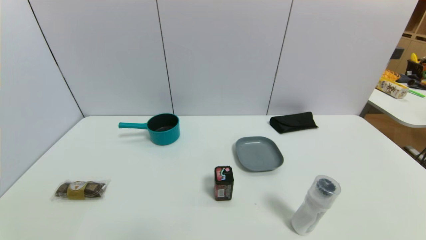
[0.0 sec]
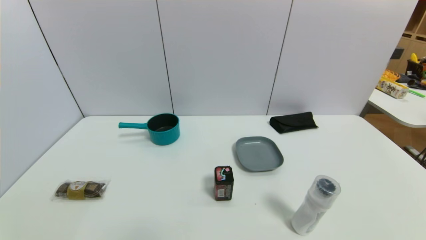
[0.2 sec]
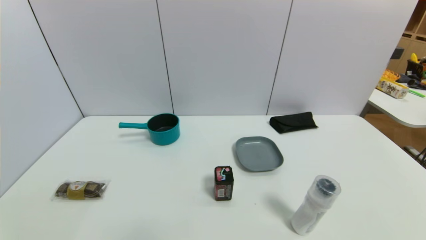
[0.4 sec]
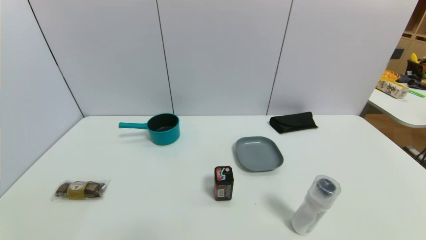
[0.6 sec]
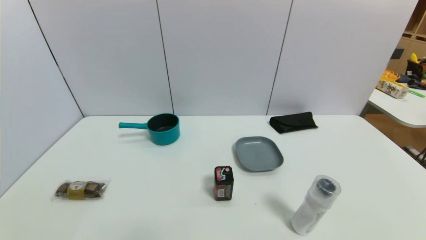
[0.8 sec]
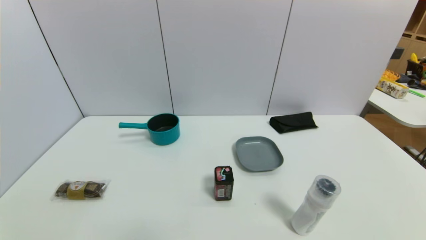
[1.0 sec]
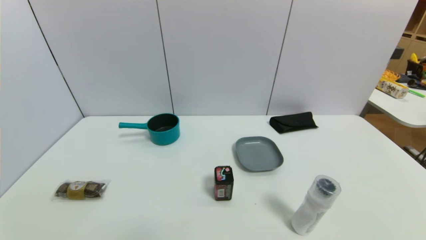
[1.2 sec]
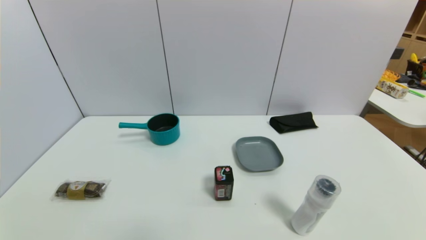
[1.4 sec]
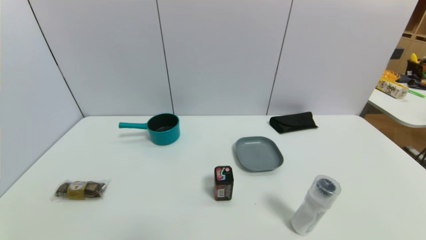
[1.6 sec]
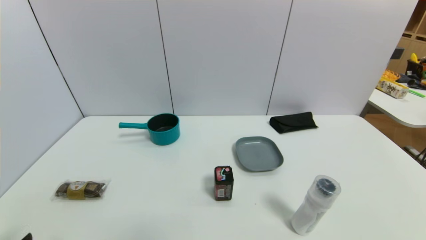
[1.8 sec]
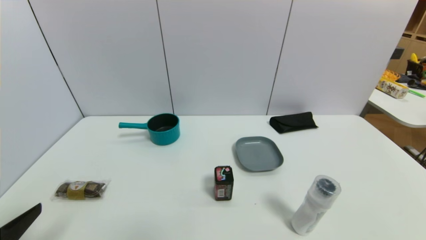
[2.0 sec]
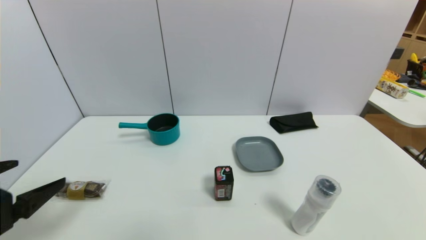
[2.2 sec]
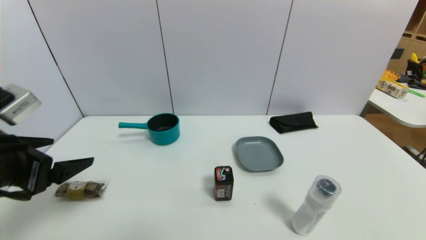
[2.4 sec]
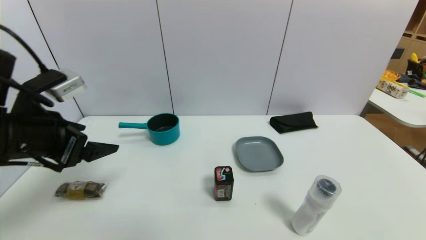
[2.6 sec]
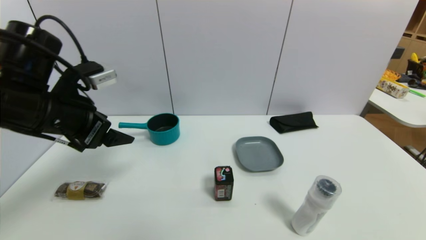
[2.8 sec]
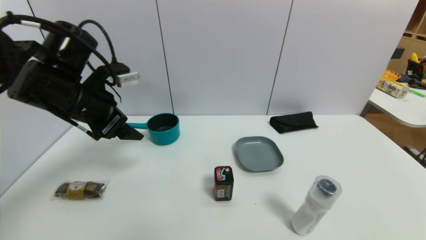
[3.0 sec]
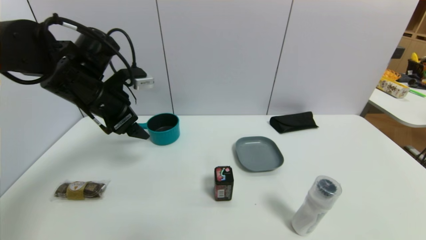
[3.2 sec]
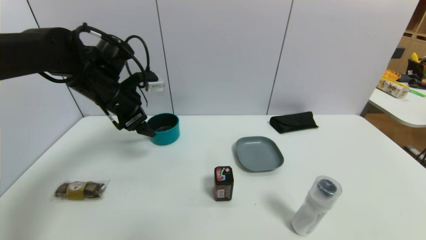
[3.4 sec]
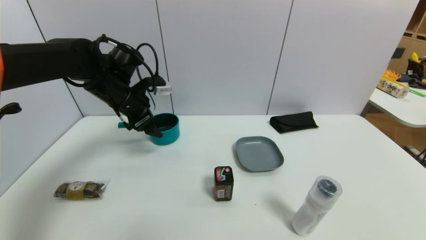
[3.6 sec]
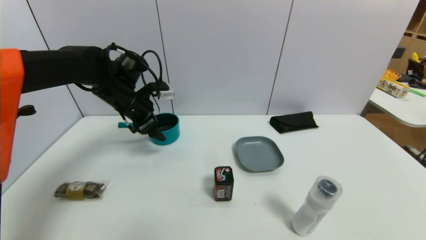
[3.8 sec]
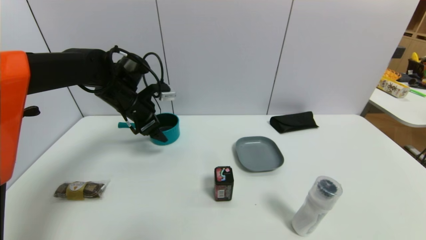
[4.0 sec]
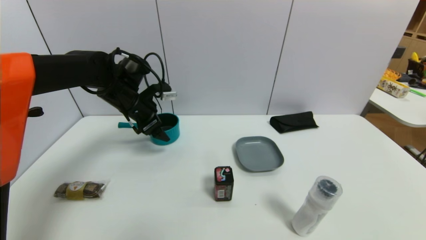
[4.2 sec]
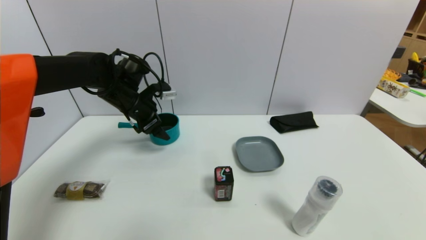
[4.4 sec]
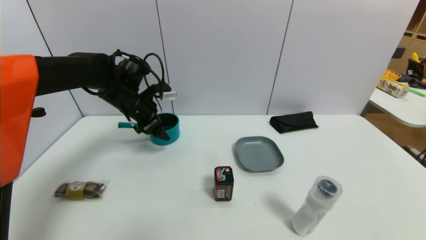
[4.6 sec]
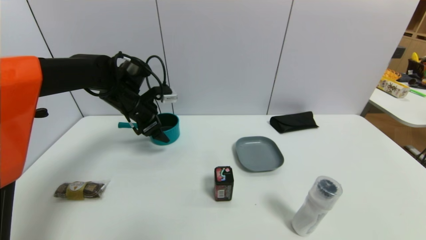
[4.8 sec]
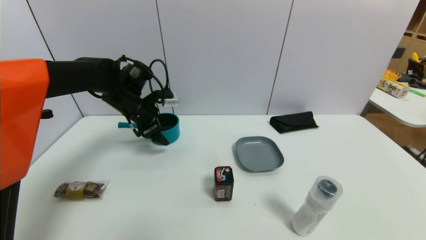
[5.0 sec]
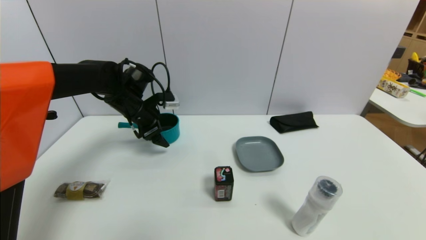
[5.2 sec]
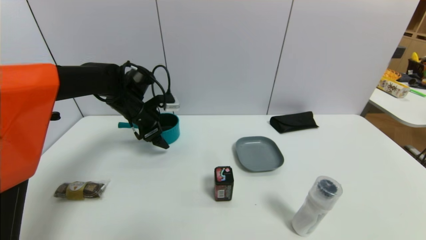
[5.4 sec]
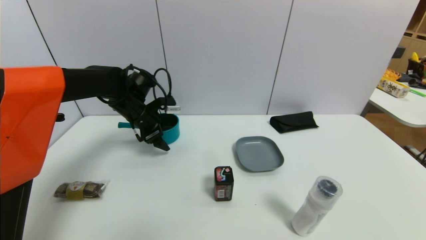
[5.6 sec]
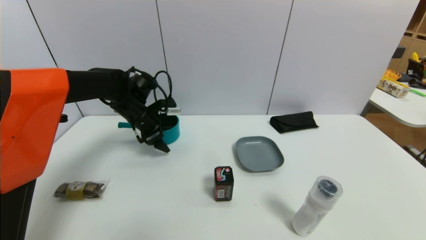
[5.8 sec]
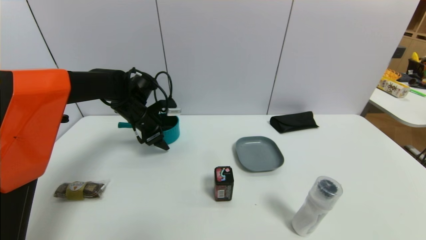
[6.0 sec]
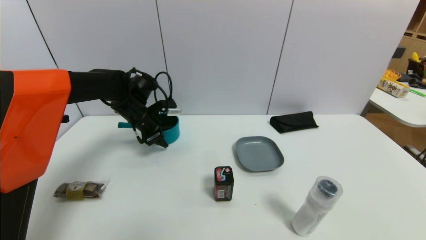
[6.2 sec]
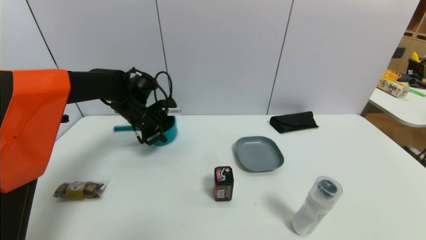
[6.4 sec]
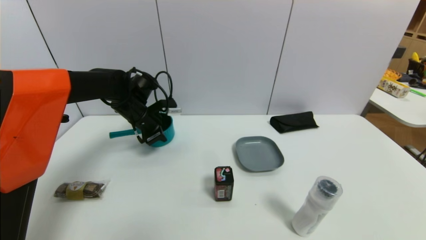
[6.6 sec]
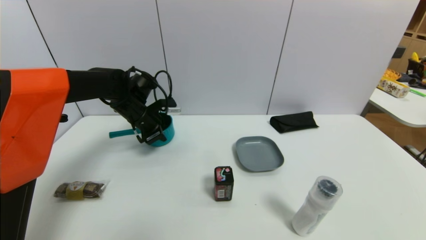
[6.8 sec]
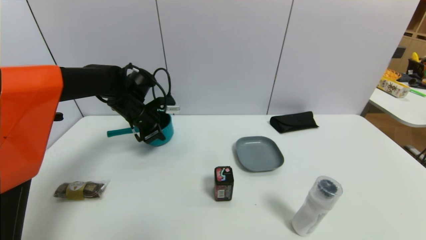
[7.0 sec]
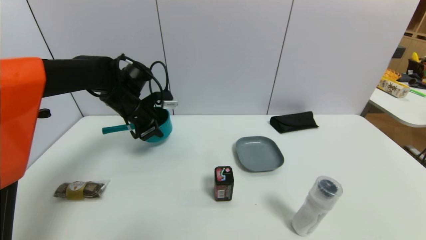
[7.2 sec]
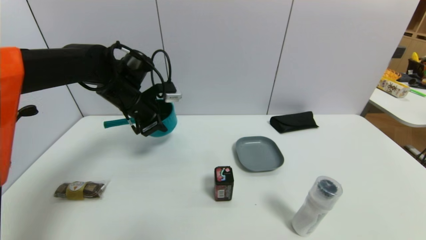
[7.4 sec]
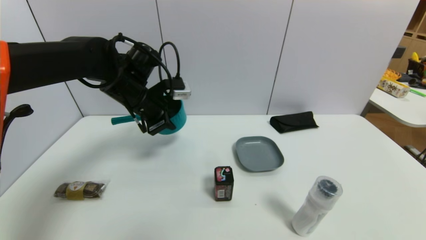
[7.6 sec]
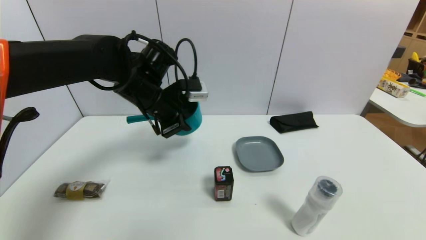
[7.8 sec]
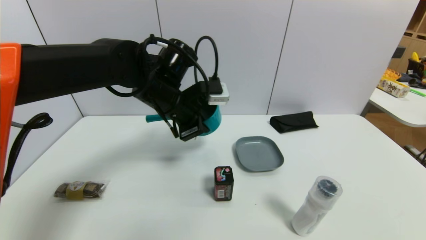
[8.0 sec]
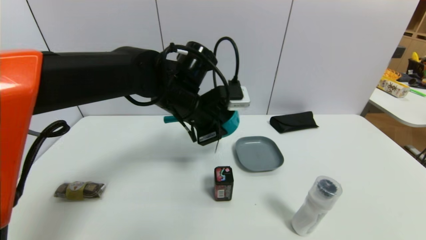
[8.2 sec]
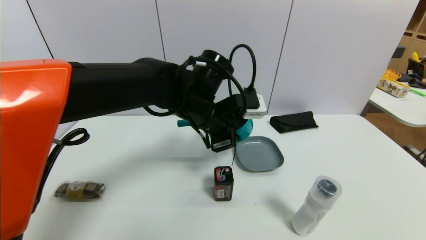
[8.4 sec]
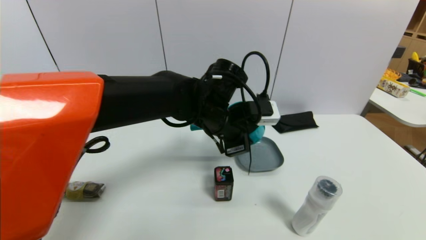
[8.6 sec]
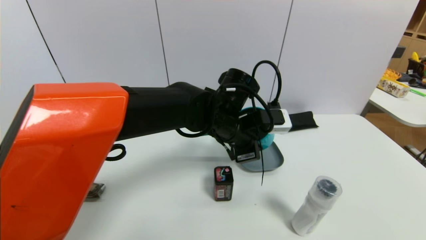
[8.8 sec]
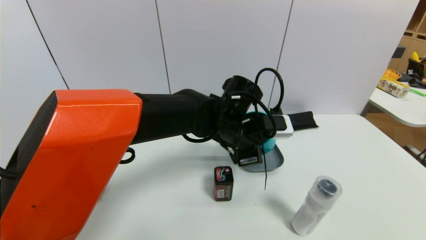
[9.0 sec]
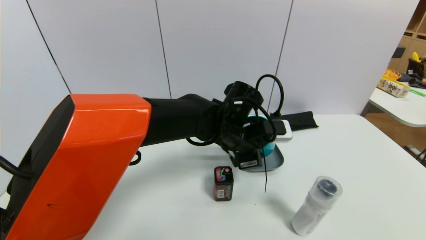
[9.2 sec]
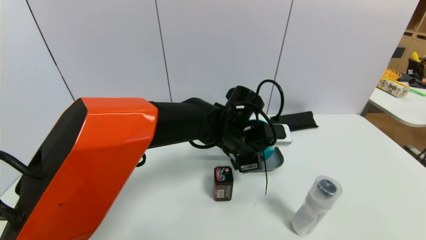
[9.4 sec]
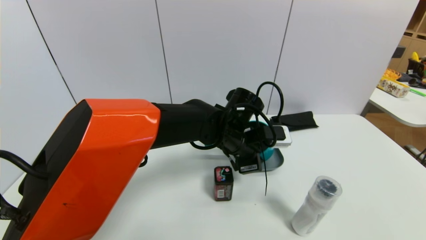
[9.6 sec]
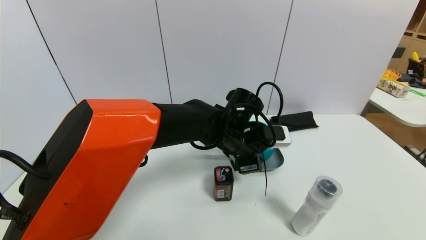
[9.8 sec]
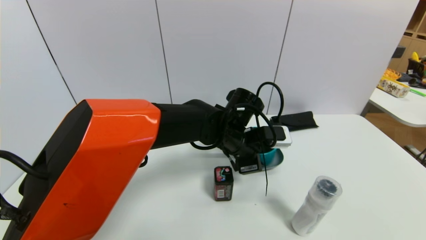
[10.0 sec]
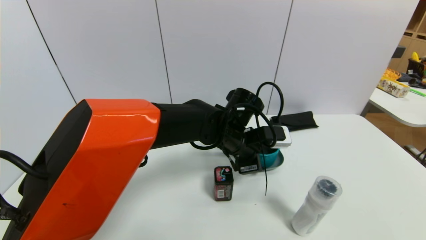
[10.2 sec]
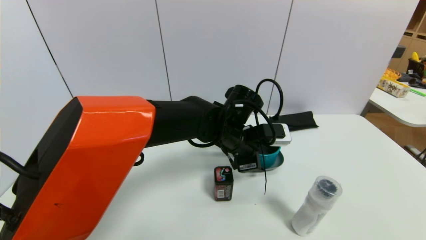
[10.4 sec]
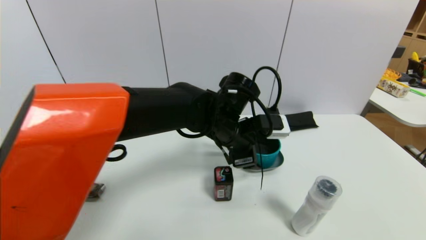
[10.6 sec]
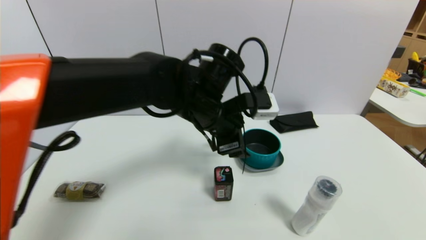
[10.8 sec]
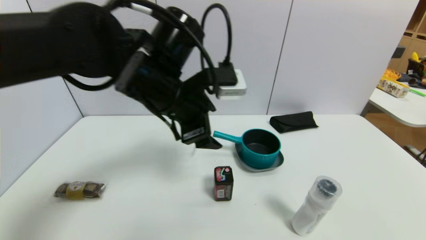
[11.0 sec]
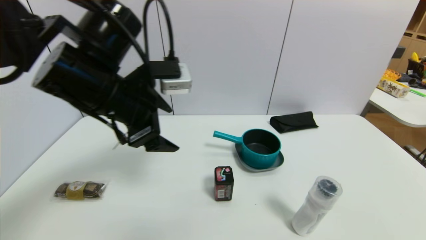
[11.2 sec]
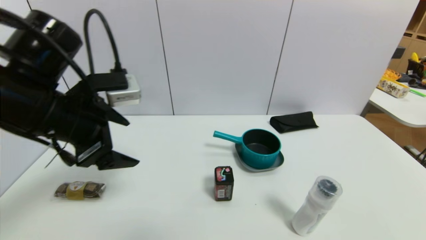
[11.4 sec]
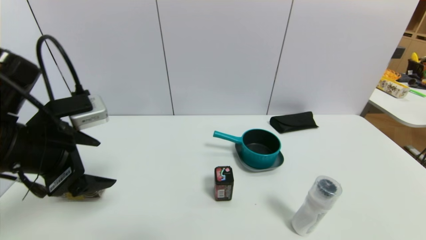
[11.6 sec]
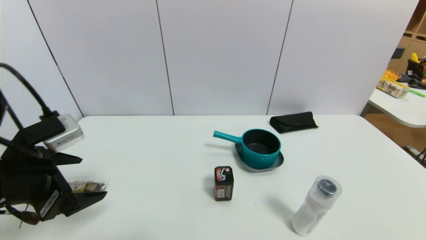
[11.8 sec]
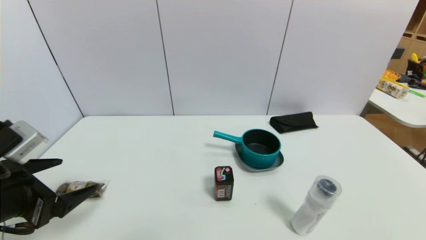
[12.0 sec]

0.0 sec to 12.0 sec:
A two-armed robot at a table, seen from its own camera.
Task of the whole recording: use a gripper to pick the target object and place on the dish.
Step, 0.0 sec to 6.6 sec: Grasp the blue pot with the left gripper.
Step, 6.8 sec to 10.8 sec: Place the blue pot on the dish with the left gripper.
1.6 sec to 3.0 sec: The left gripper shifts about 35 cm forward and upward.
3.0 sec to 4.4 sec: The left gripper shifts about 10 cm forward and downward.
4.4 sec to 6.0 sec: The grippers make only small movements.
6.0 sec to 7.6 sec: The left gripper moves upward and backward, about 10 cm, and closes its fingers.
7.6 sec to 9.0 sec: The left gripper goes about 20 cm to the right.
9.0 sec to 10.4 sec: The left gripper opens up.
10.4 sec to 12.0 sec: The left gripper moves to the left and backward, approximately 40 cm.

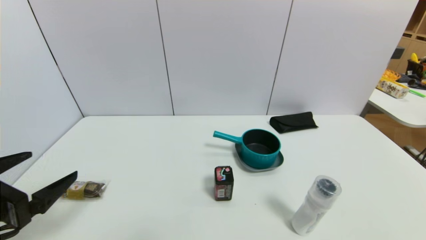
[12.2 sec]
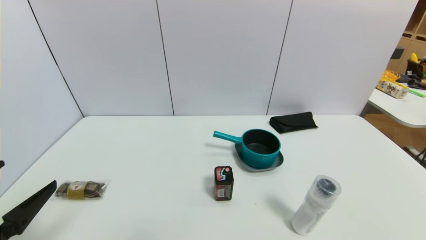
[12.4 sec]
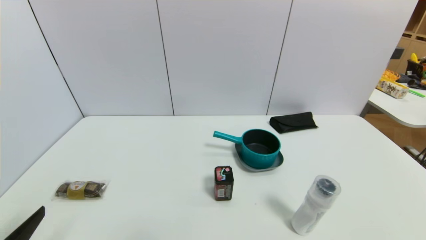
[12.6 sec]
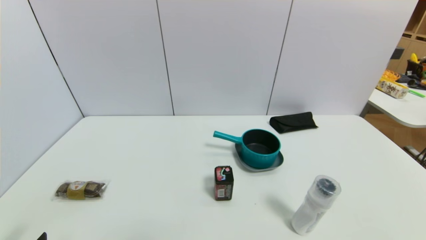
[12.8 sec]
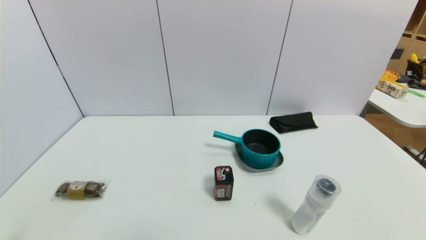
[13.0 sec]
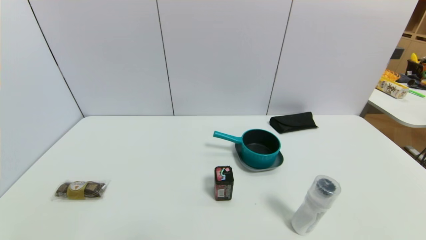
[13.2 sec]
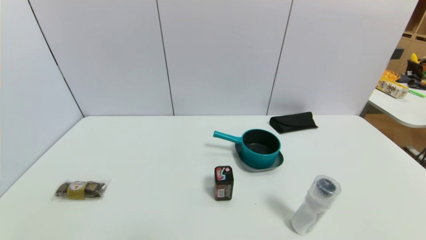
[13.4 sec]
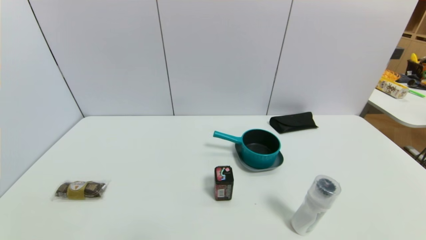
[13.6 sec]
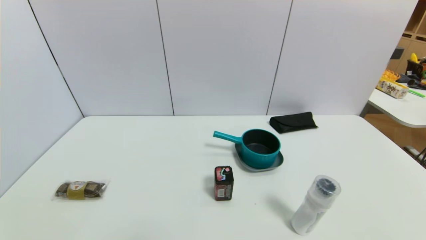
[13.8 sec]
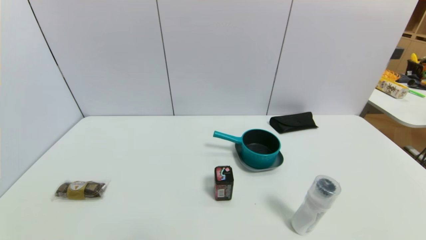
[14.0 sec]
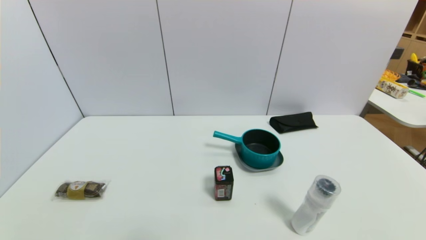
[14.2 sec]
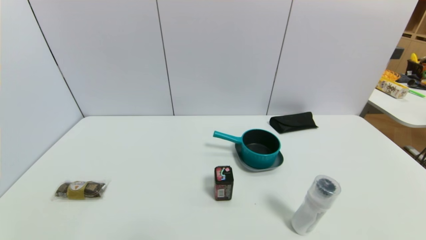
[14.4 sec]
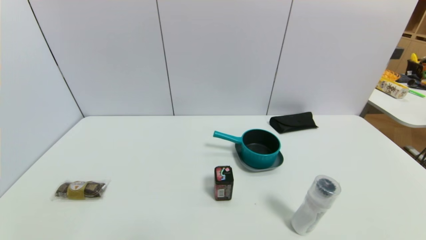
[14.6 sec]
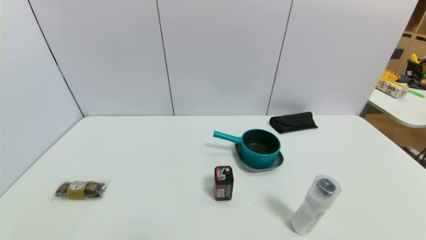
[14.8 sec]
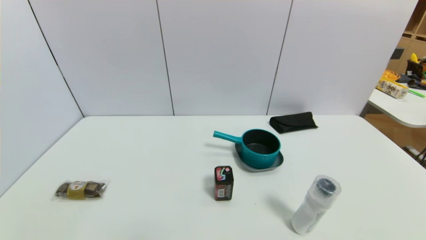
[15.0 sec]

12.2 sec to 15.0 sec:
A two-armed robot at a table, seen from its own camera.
Task of the whole recording: use a gripper to pick the target object and place on the dish.
12.2 sec to 13.6 sec: The left gripper heads downward and backward, covering approximately 15 cm.
